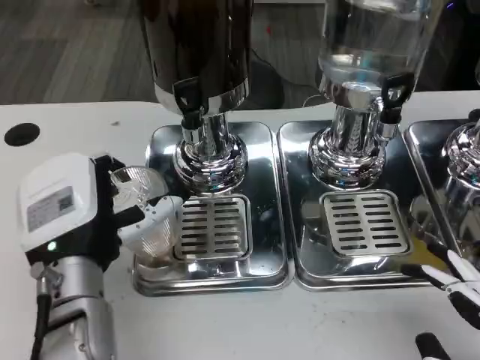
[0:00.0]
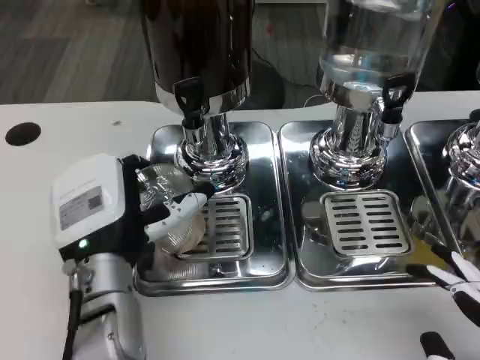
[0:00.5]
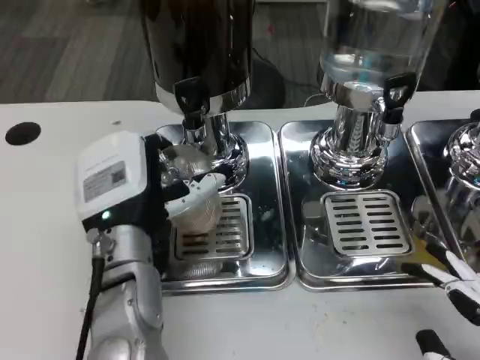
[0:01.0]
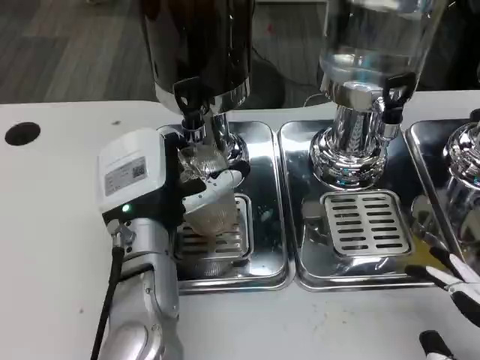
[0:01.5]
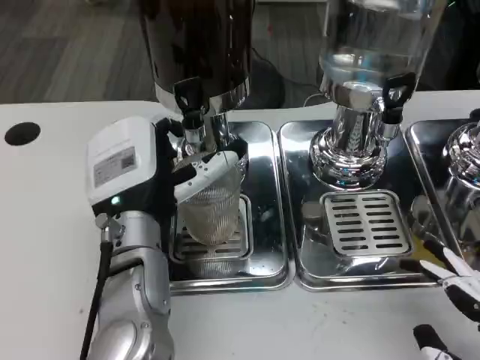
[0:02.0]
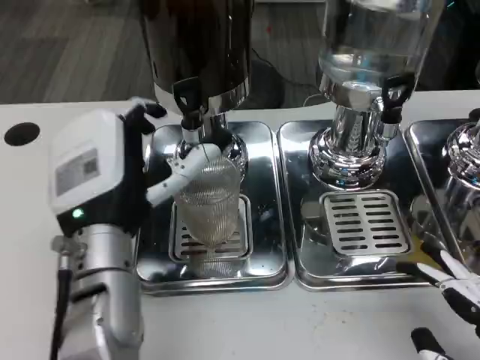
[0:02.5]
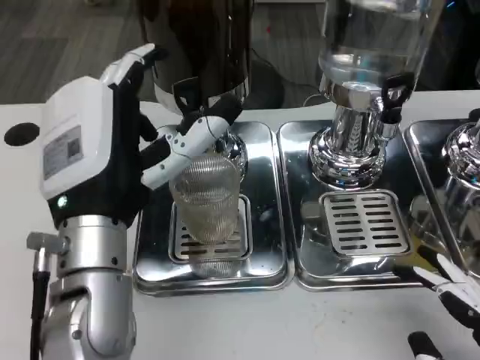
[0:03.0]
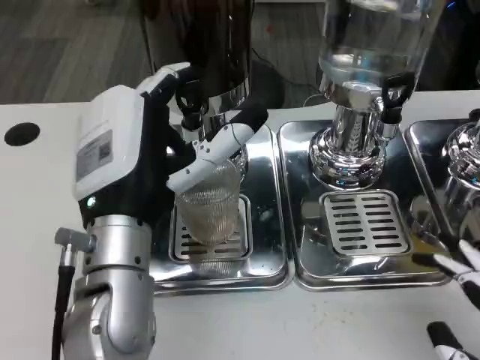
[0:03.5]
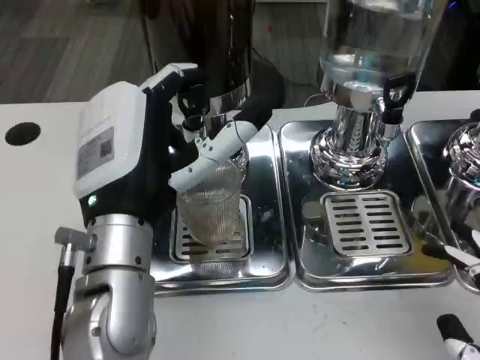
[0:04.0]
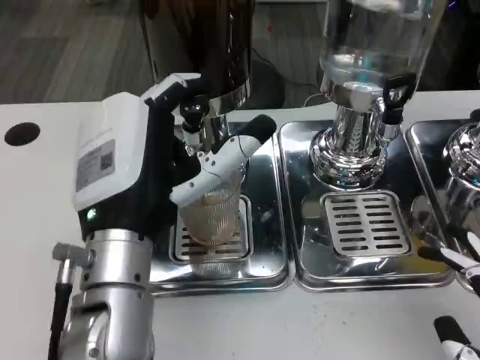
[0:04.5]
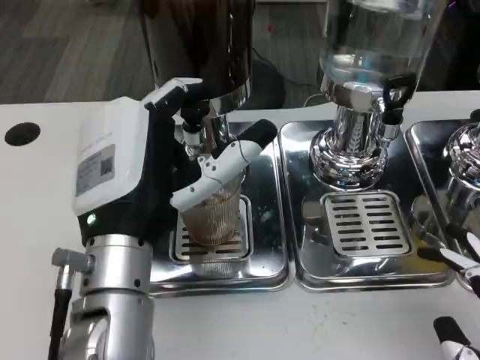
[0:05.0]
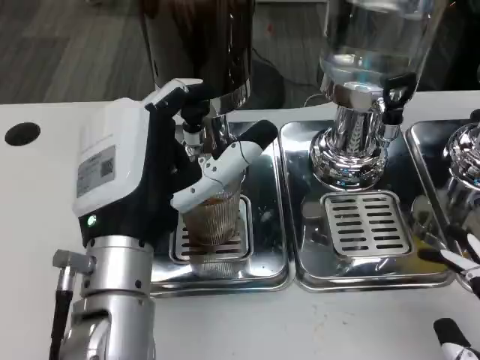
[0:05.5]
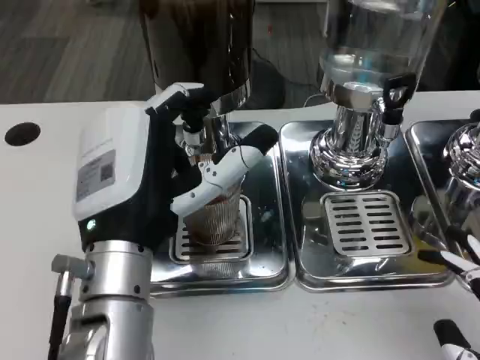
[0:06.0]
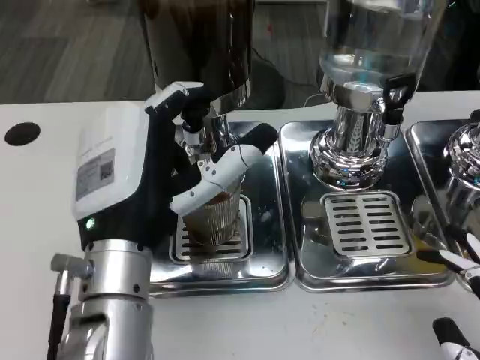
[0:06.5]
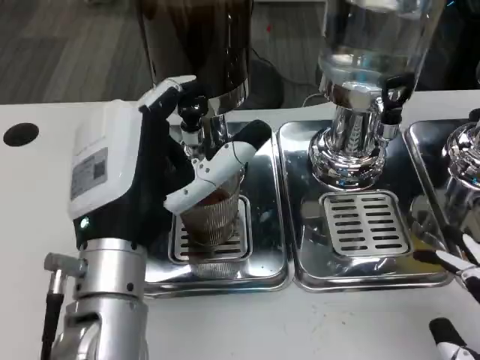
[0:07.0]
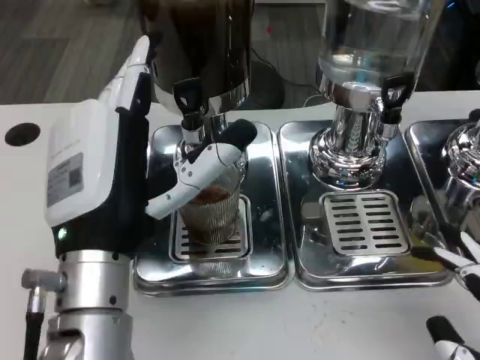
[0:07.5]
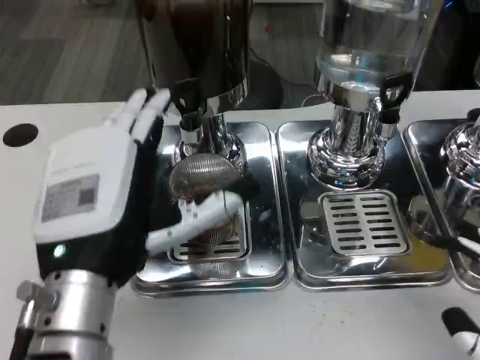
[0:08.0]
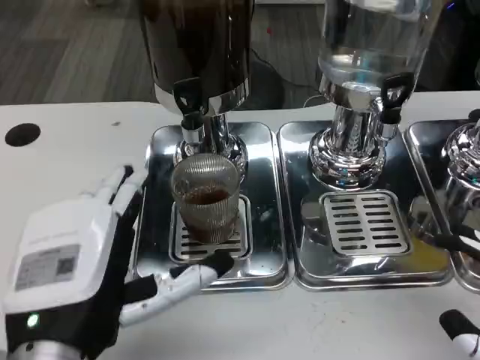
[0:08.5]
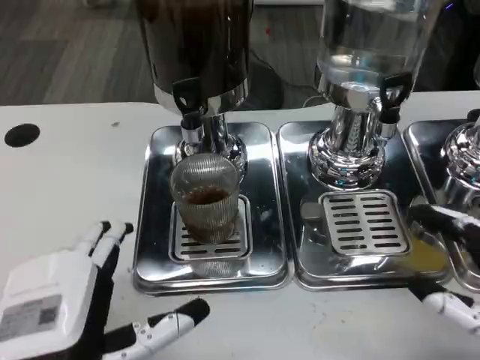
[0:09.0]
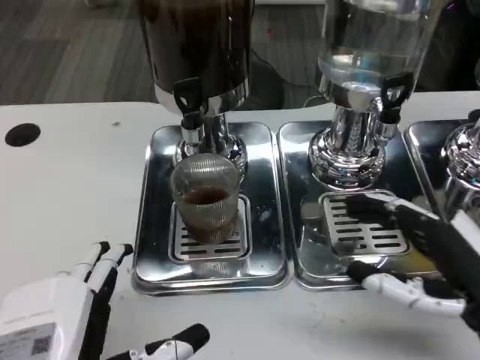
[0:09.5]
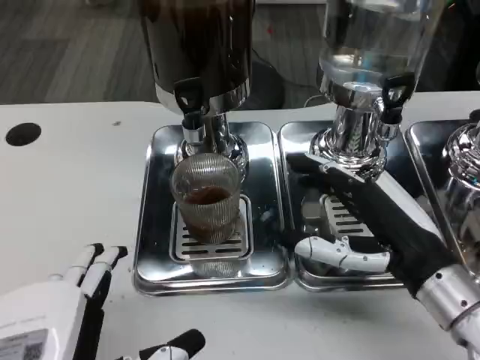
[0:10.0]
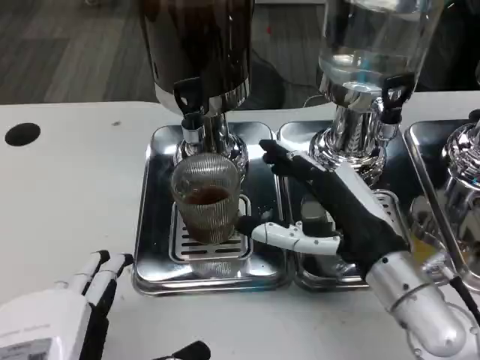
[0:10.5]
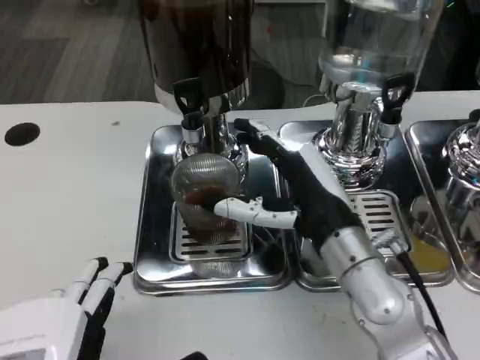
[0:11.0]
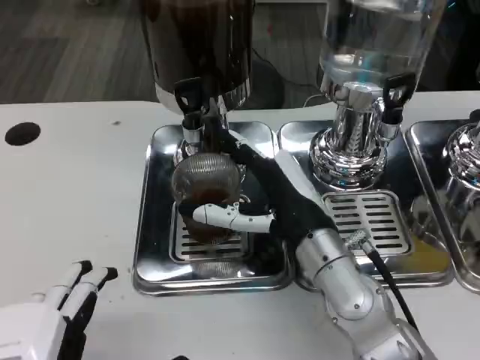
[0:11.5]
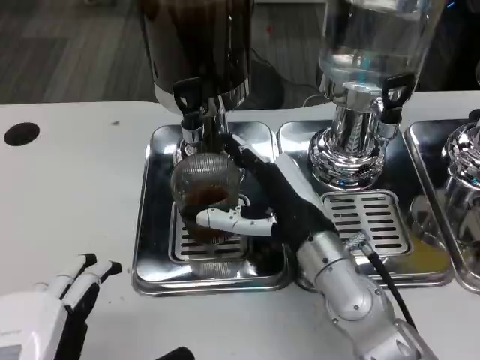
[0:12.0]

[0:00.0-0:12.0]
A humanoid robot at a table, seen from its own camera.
Task of the whole recording: Grasp the cup under the faucet to collect the drink, then remove the cup.
0:00.0 to 0:02.0: The left hand changes place by roughly 5 cm.
0:02.0 to 0:04.0: The left hand shifts by roughly 5 cm.
0:04.0 to 0:06.0: The hands make only small movements.
0:08.0 to 0:10.0: The left hand travels backward by roughly 10 cm; the right hand goes about 15 cm forward and to the left.
0:10.0 to 0:12.0: The right hand moves to the left and forward, some 10 cm.

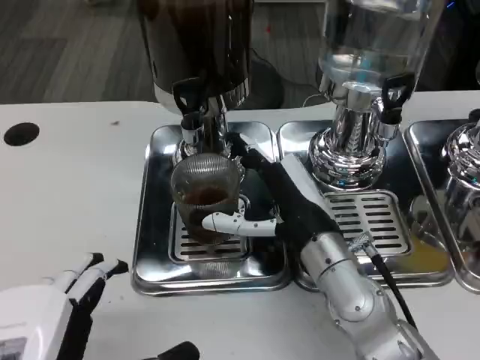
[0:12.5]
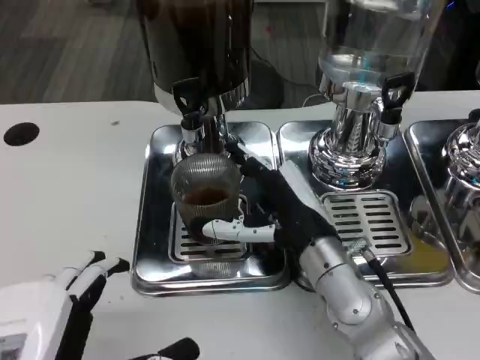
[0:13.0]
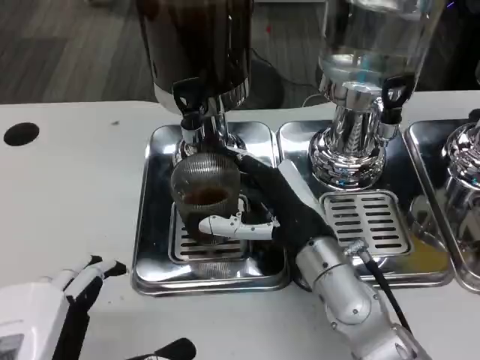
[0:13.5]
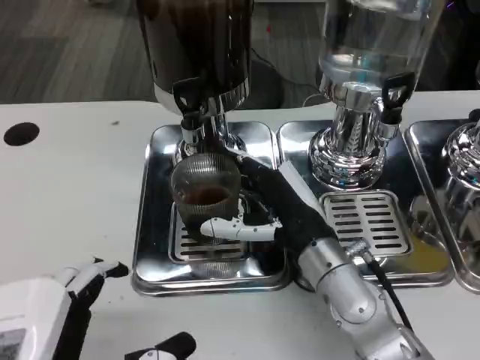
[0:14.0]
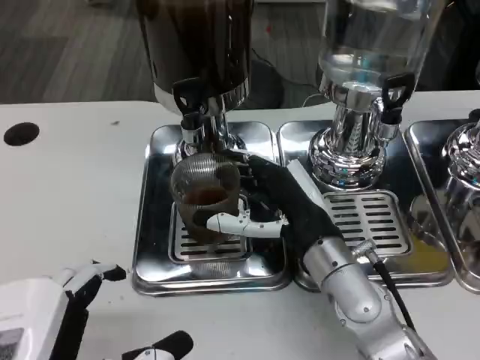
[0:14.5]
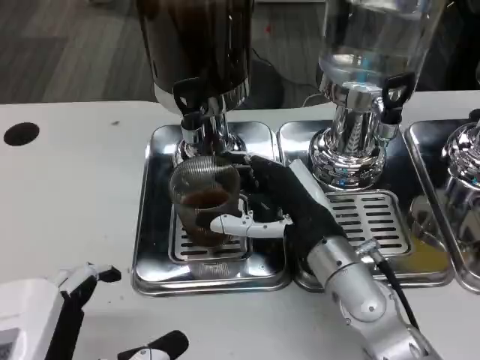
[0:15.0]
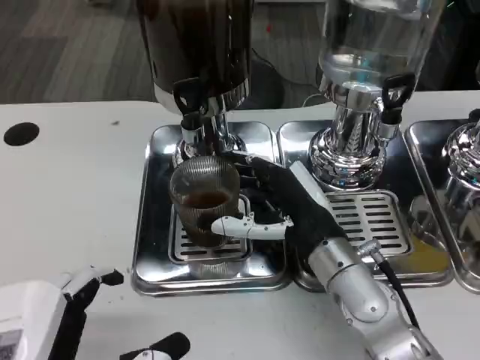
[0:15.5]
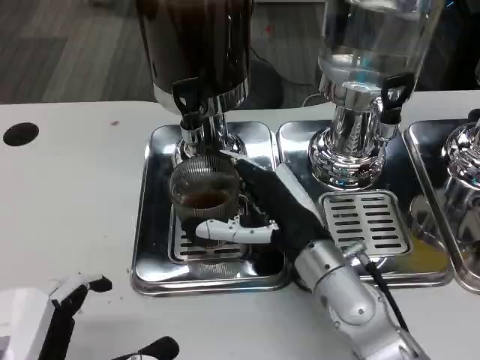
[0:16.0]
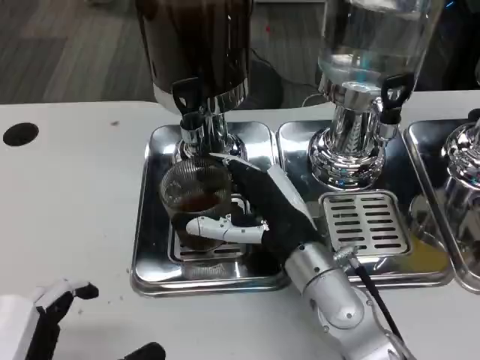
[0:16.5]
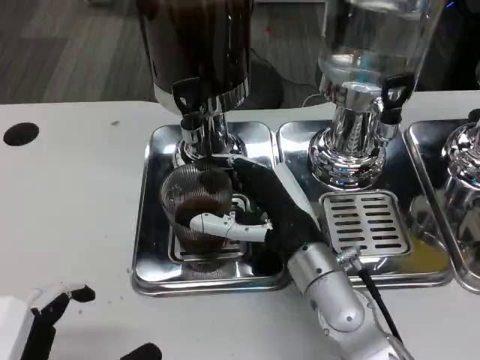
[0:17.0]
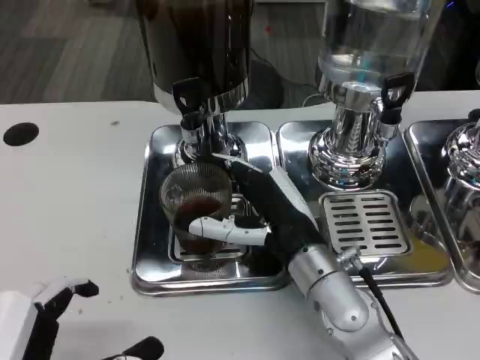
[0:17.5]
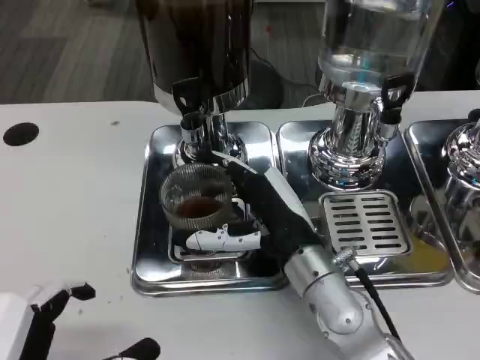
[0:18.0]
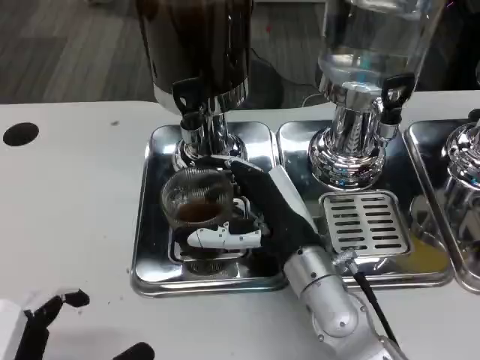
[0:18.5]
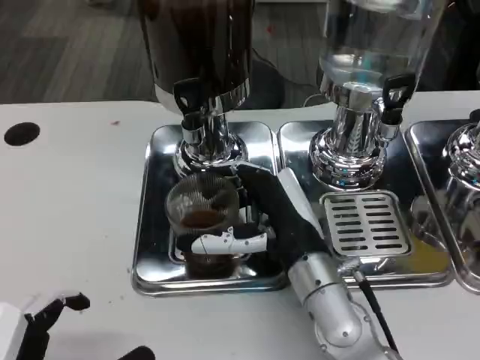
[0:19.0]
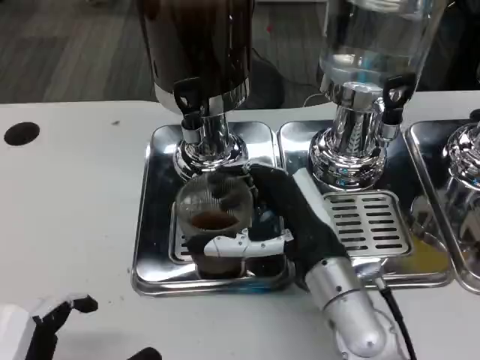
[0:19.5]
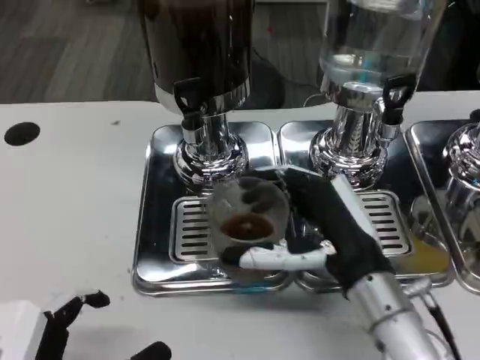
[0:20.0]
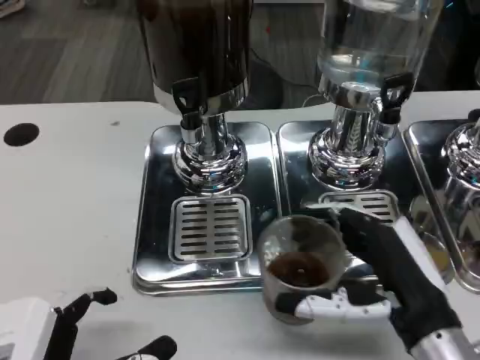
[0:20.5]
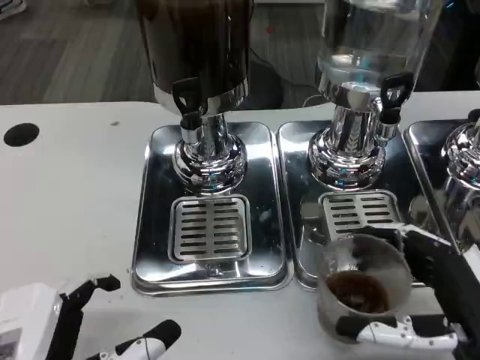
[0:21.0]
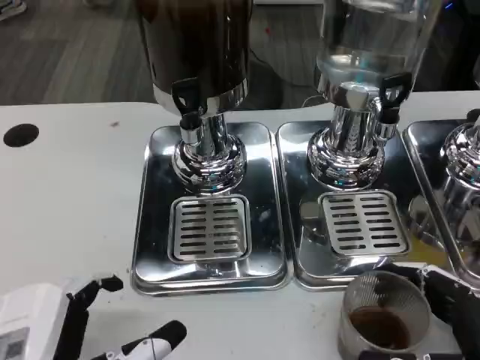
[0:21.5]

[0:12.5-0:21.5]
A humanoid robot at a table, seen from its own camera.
Task of the whole recording: Grasp the cup under the faucet to collect the drink, then remove the cup.
0:12.5 to 0:19.5: The hands stay close to where they were, moving slightly.
0:19.5 to 0:21.5: The right hand moves to the right and backward, some 20 cm.

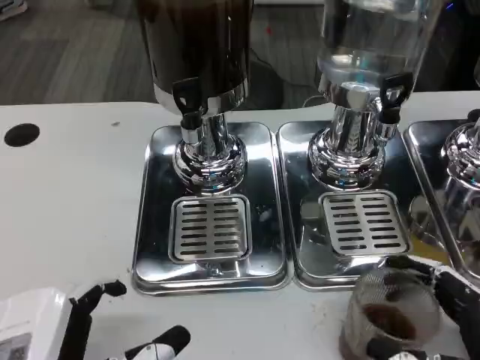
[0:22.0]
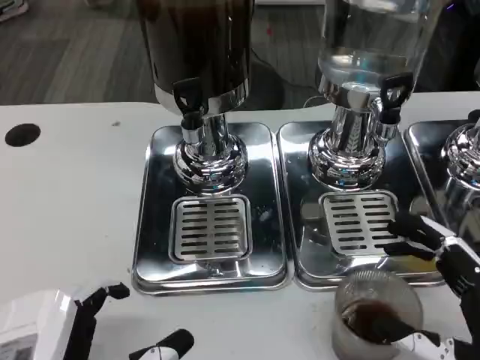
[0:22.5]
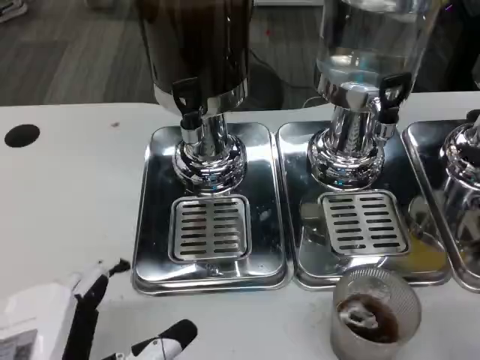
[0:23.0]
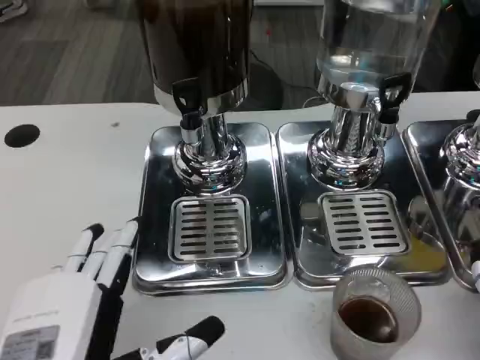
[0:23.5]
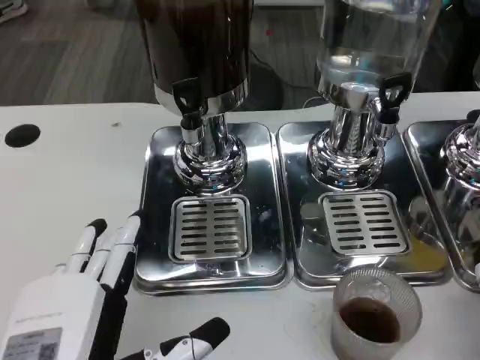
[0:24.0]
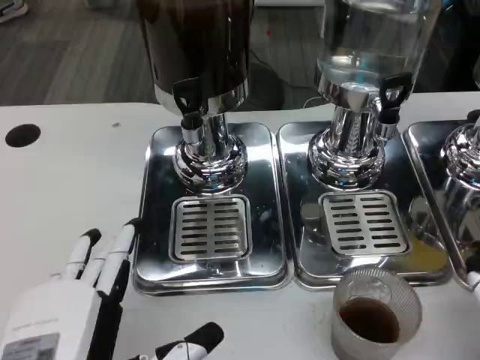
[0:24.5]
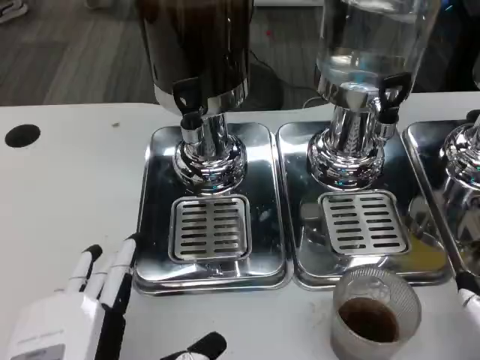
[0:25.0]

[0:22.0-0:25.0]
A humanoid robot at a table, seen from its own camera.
Task of the whole recording: Grasp the cup under the faucet to collect the drink, then remove the cup.
0:22.0 to 0:23.5: The right hand heads upward, covering approximately 5 cm.
0:23.5 to 0:25.0: The hands stay close to where they were, moving slightly.

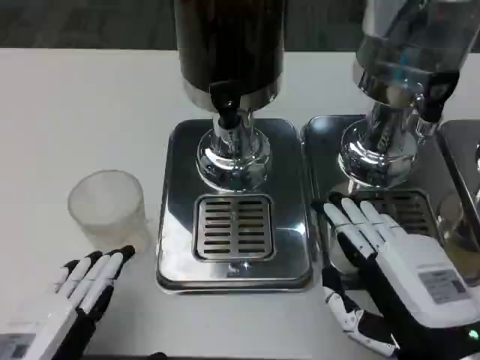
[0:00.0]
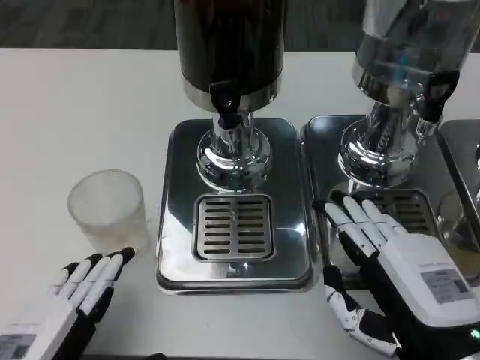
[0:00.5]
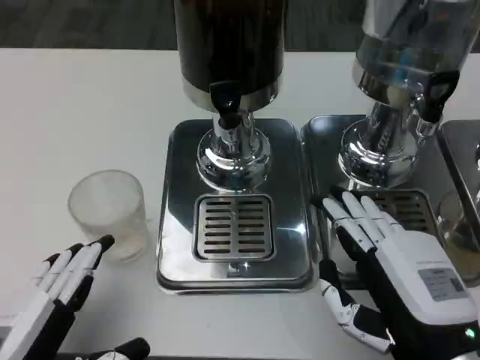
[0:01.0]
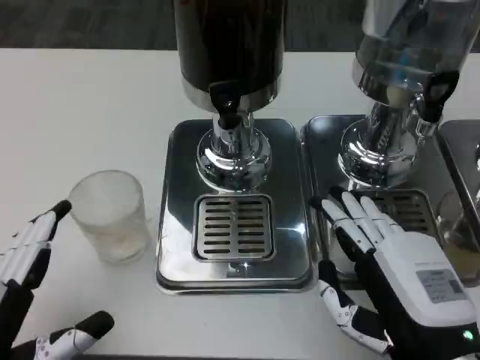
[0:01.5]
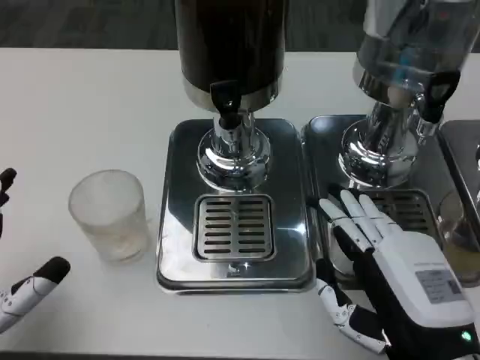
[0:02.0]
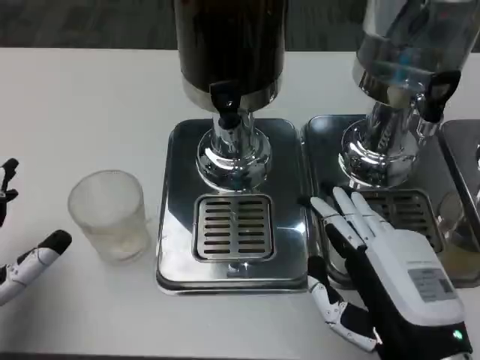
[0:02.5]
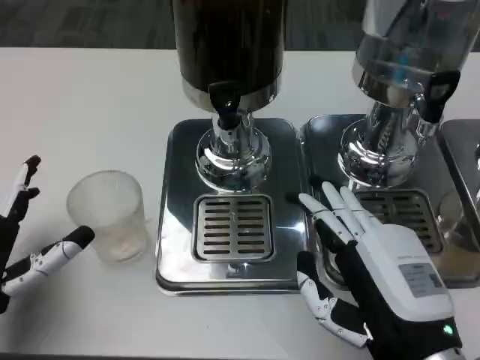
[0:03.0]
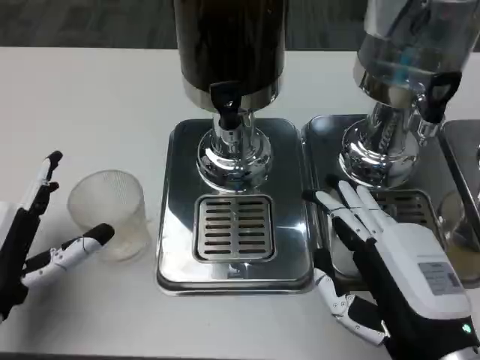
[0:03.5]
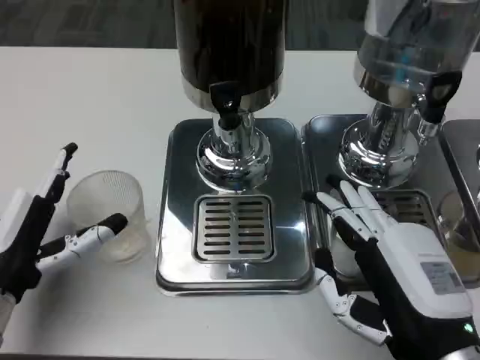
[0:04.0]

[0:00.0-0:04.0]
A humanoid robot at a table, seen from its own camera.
Task of the whole recording: Grasp the cup under the faucet to collect the drink, then remove the cup.
0:00.0 to 0:02.0: The left hand moves some 5 cm.
0:02.0 to 0:04.0: The left hand heads forward, covering about 10 cm.
